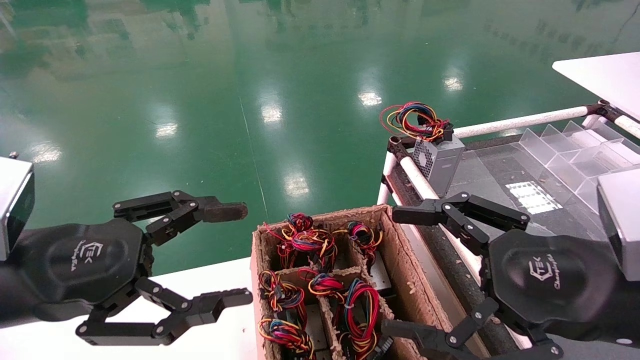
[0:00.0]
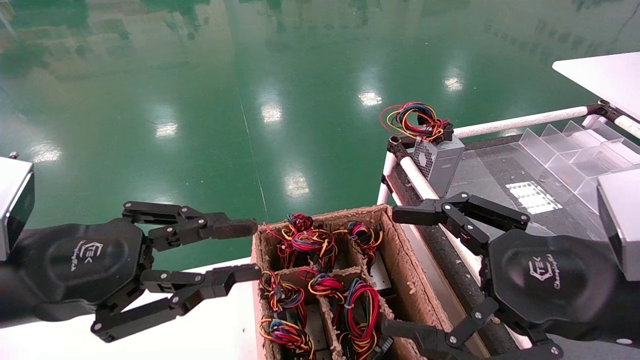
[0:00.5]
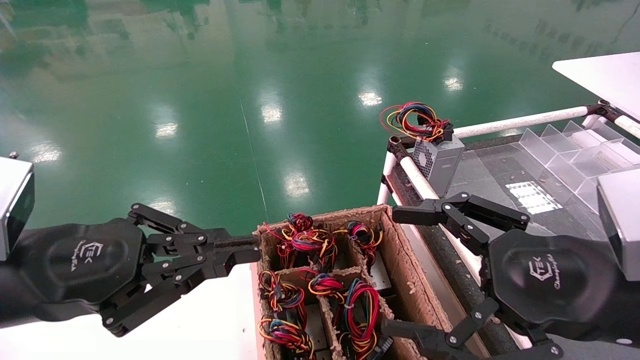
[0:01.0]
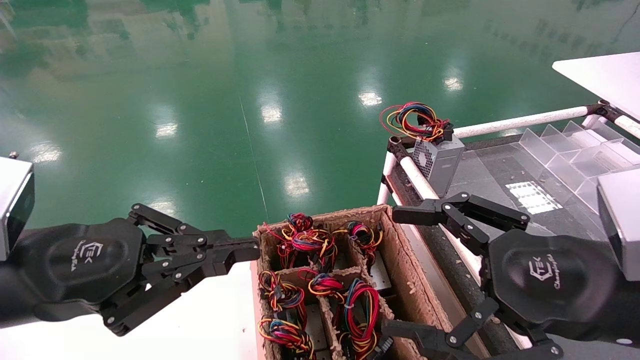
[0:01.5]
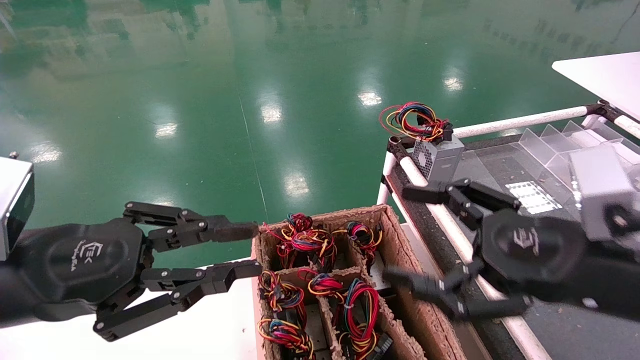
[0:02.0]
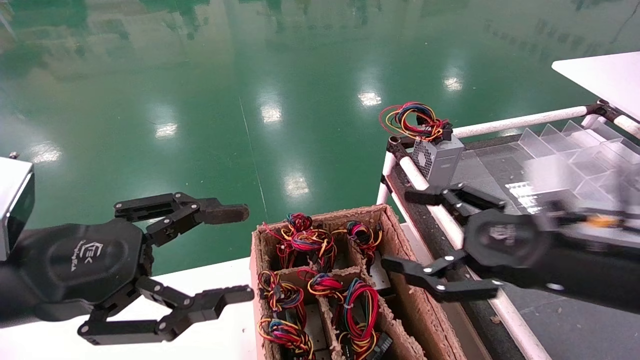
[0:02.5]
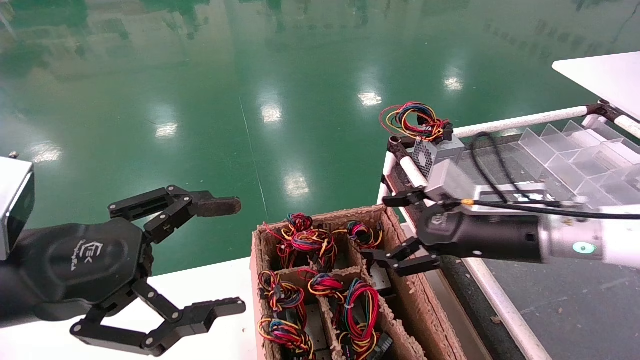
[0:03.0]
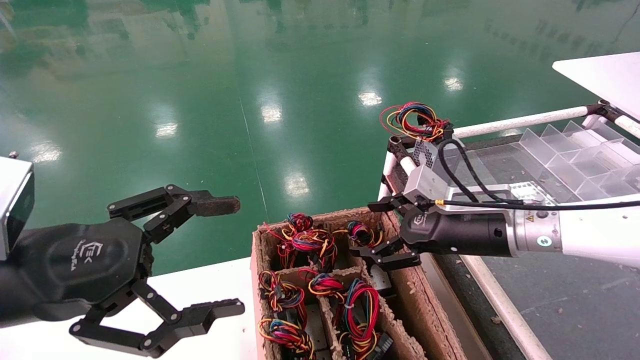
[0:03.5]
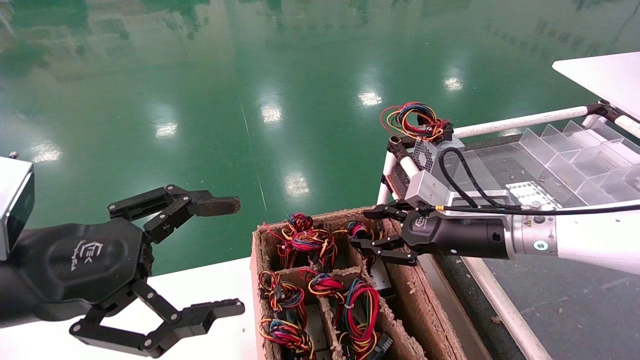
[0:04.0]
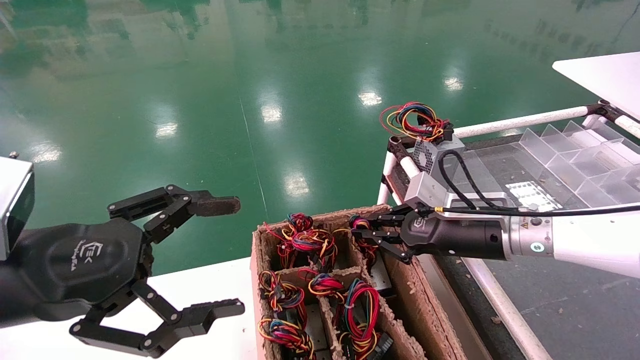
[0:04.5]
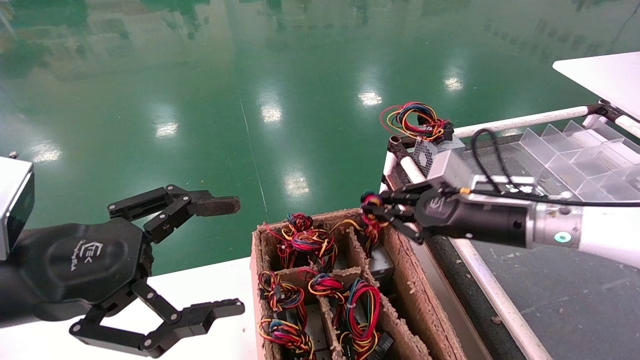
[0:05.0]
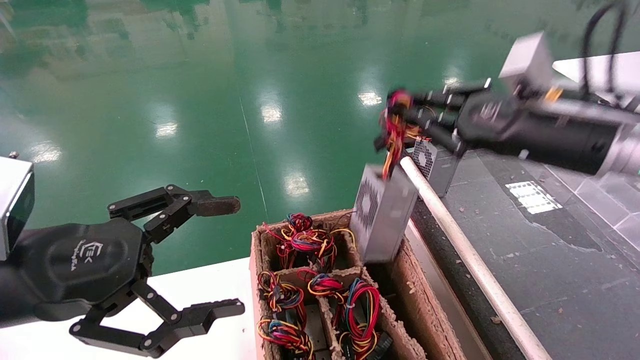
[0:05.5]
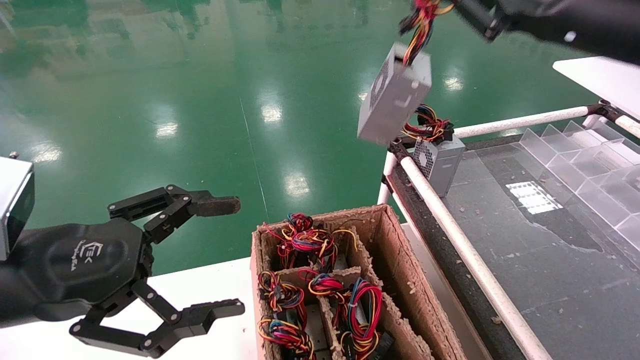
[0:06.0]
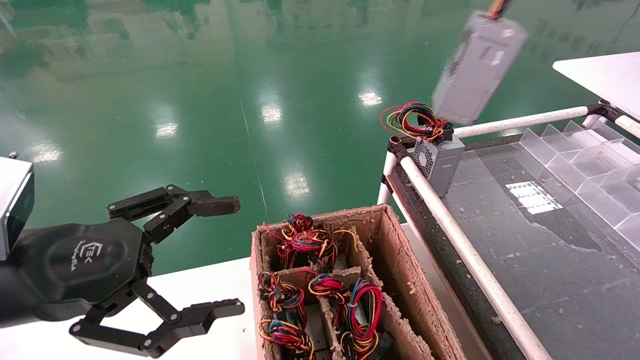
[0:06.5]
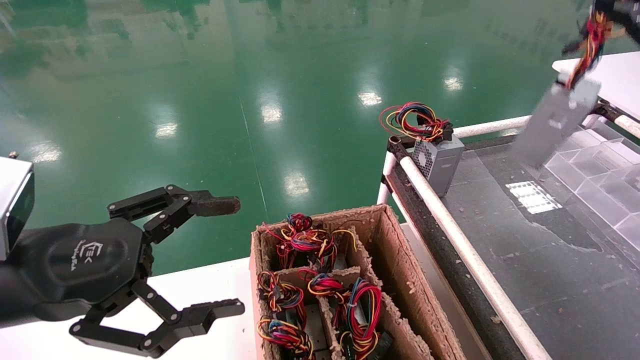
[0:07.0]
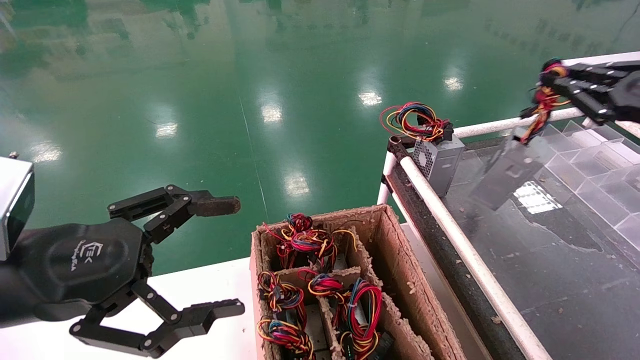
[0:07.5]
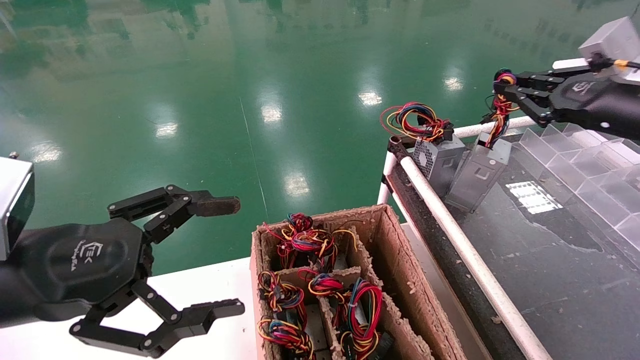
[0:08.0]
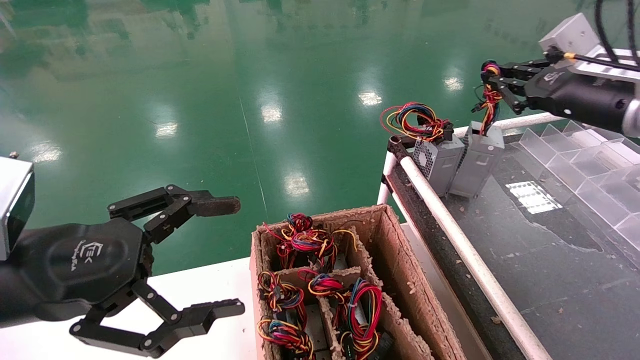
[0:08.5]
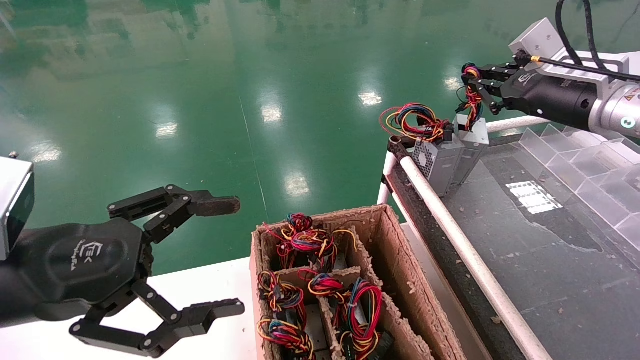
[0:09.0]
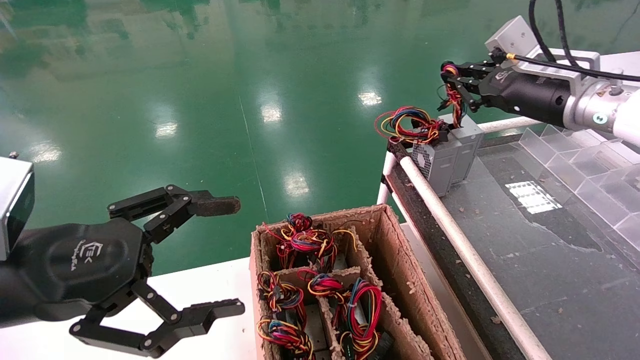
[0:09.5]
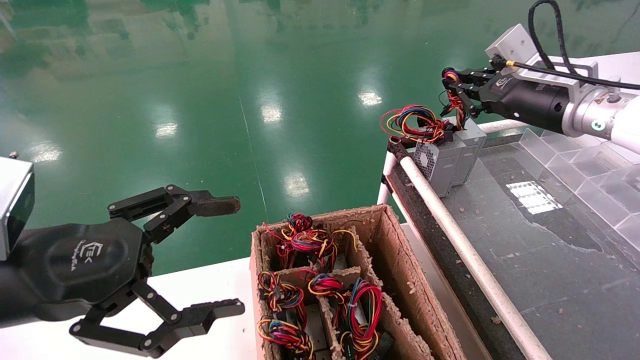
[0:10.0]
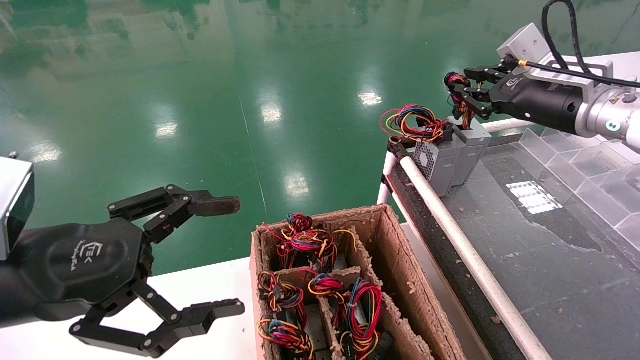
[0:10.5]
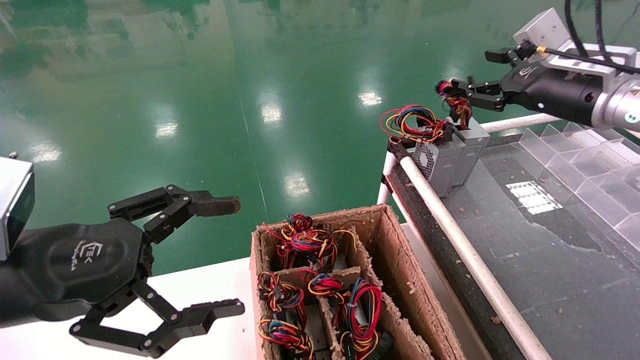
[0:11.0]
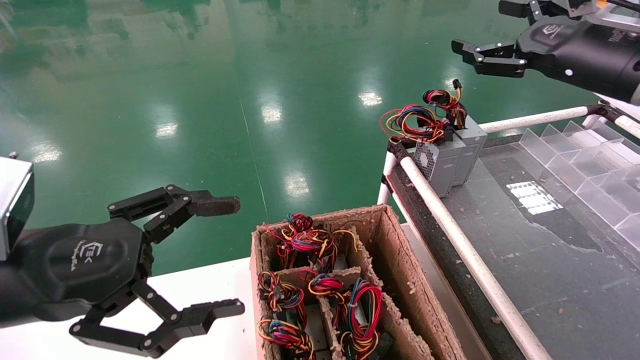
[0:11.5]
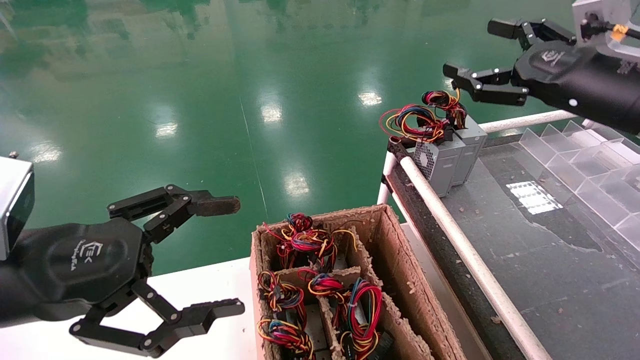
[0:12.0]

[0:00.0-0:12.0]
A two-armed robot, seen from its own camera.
Step, 0:01.5 to 0:04.5: Grab and lift the power supply from the large box.
Step, 0:05.0 to 0:10.0: Place the power supply on the operating table.
0:00.0 to 0:02.0: The left gripper closes.
0:02.0 to 0:04.0: The left gripper opens up; the right gripper is displaced forward by some 15 cm, and closes its fingers.
0:04.0 to 0:06.0: The right gripper is displaced upward by about 25 cm, and closes its fingers.
0:06.0 to 0:08.0: The right gripper travels to the right, downward and forward by some 15 cm.
0:08.0 to 0:10.0: The right gripper heads to the left and forward, covering roughly 10 cm.
0:10.0 to 0:12.0: The right gripper heads backward, covering roughly 10 cm, and opens its fingers.
